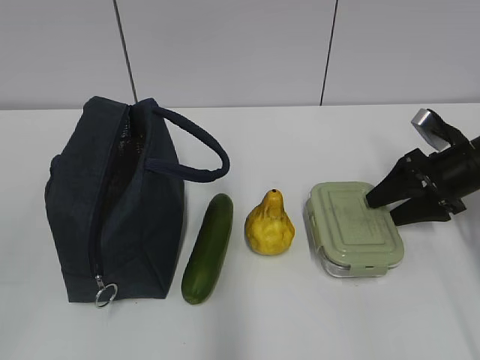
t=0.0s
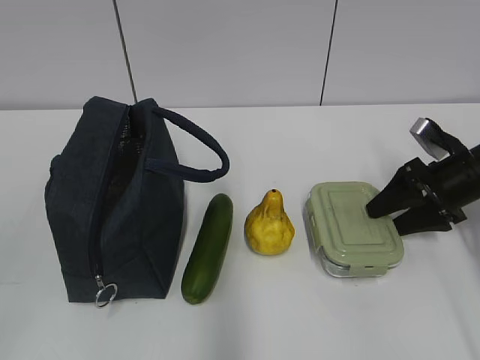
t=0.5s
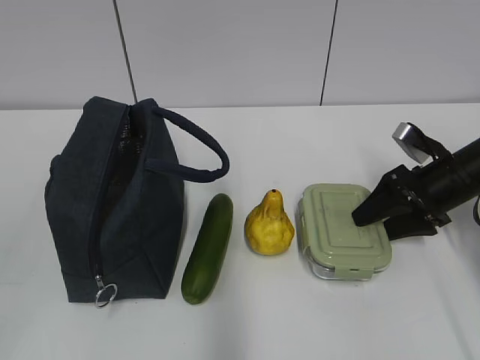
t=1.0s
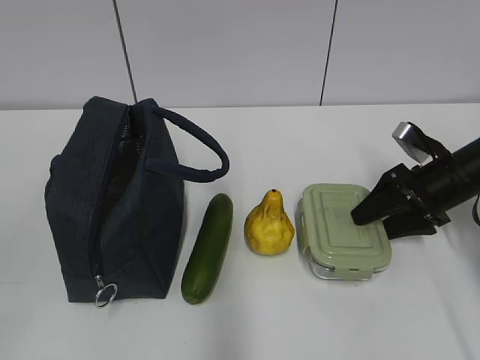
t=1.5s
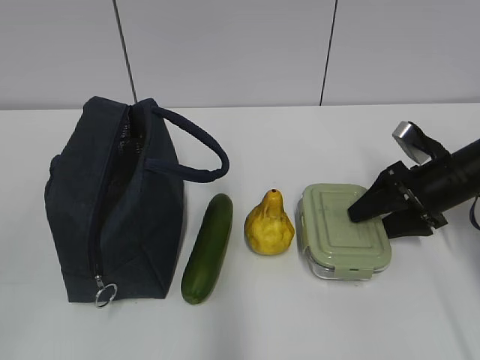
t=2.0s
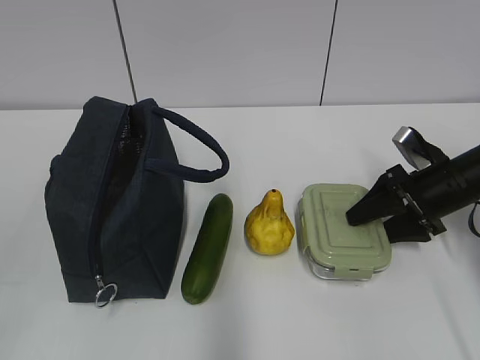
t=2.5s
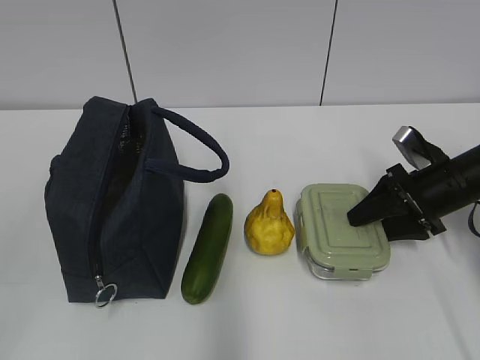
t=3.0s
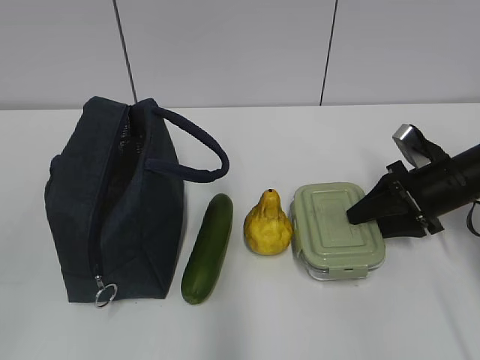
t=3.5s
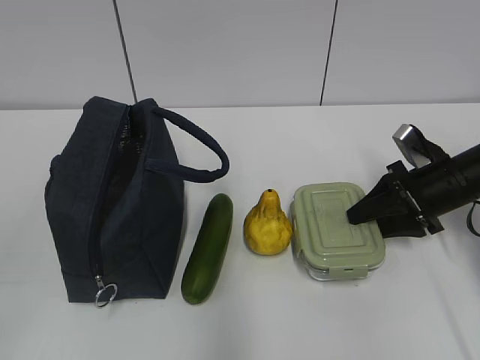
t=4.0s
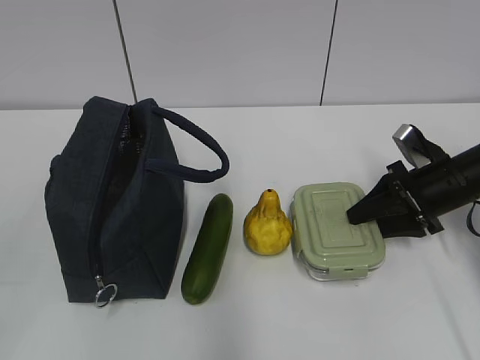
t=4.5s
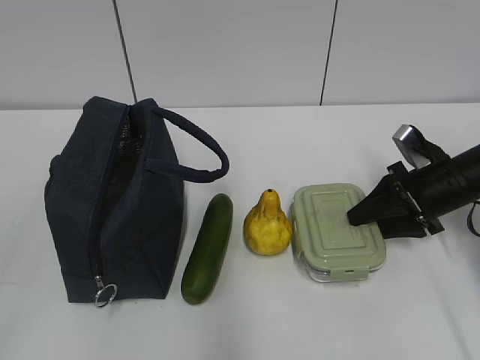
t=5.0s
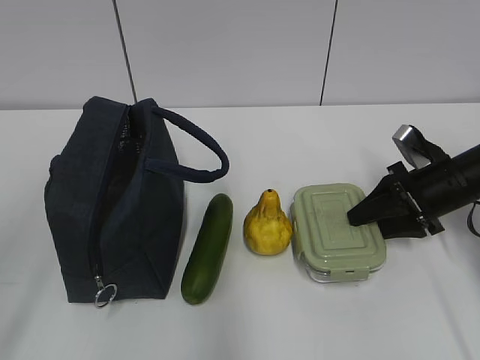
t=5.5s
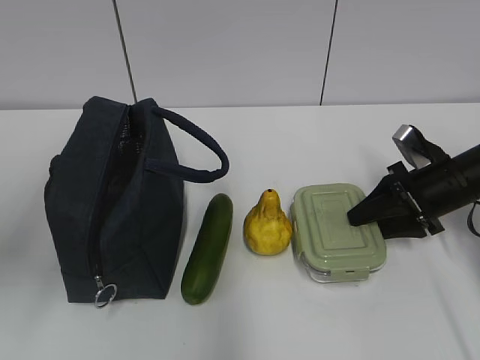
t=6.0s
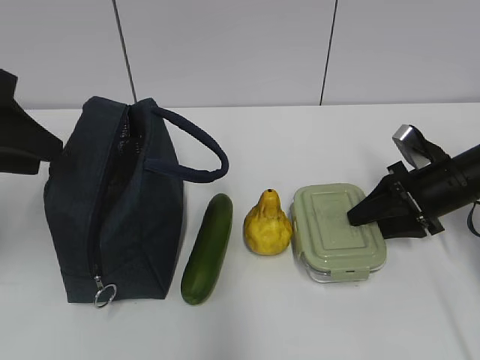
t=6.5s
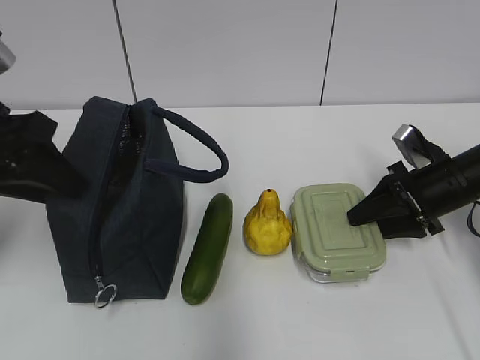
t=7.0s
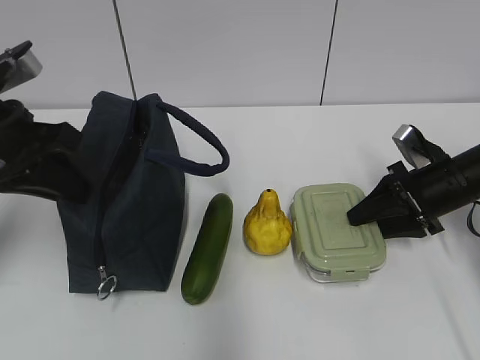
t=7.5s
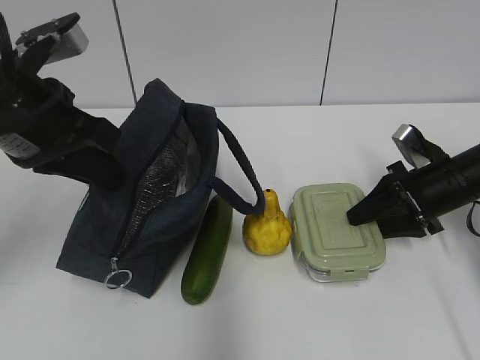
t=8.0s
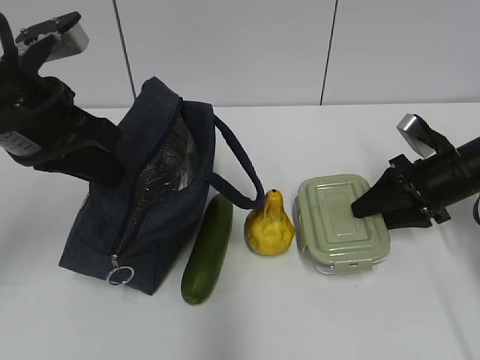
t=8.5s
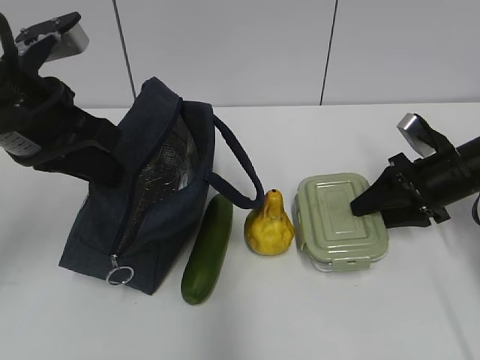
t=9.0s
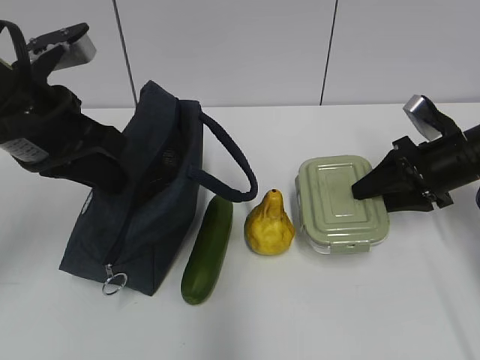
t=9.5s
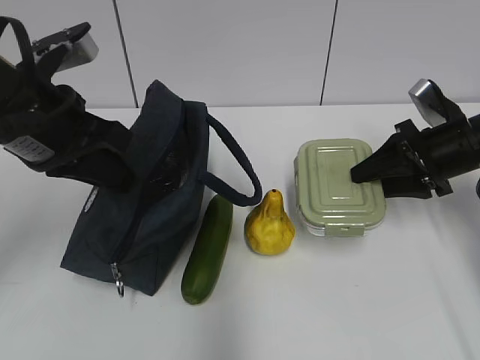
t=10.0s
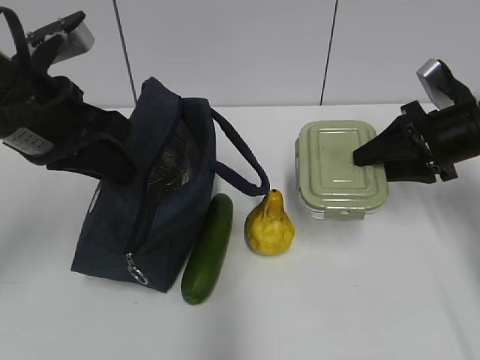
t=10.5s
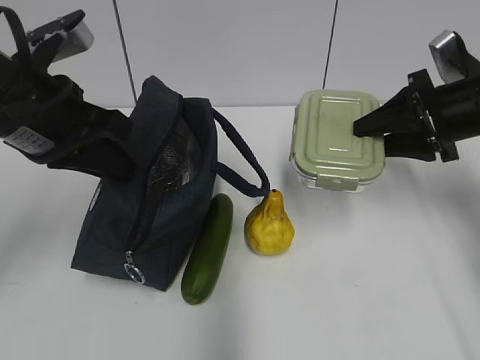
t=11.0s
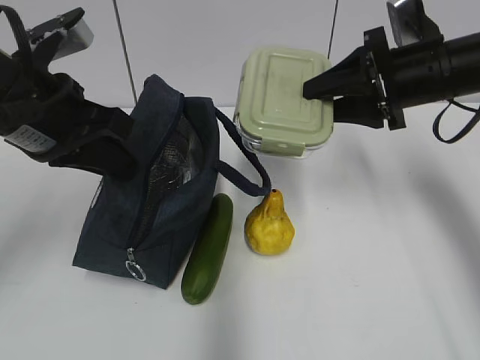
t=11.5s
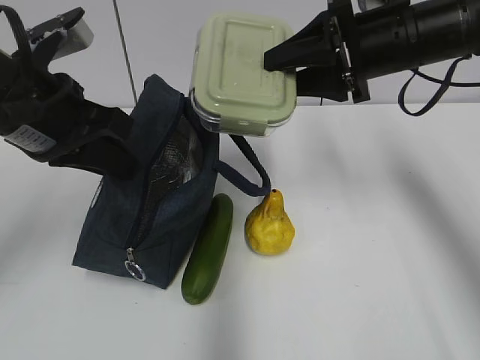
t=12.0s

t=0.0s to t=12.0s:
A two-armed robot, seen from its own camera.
t=0.0s to t=2.0s: The grippers stay close to where they were, moving slightly.
t=2.0s to t=4.0s: Both grippers stay put.
t=4.0s to t=6.0s: The left gripper heads forward, covering roughly 15 cm.
t=6.0s to t=8.0s: The left gripper shifts some 15 cm forward and to the right, and closes.
t=8.0s to t=10.0s: The right gripper moves upward, some 5 cm.
t=10.0s to t=12.0s: The right gripper is displaced upward and to the left by about 15 cm.

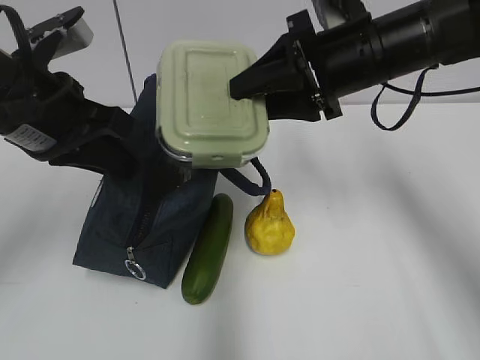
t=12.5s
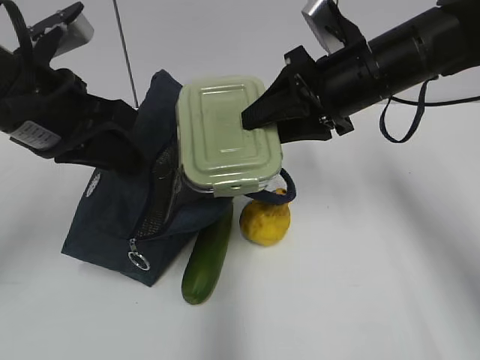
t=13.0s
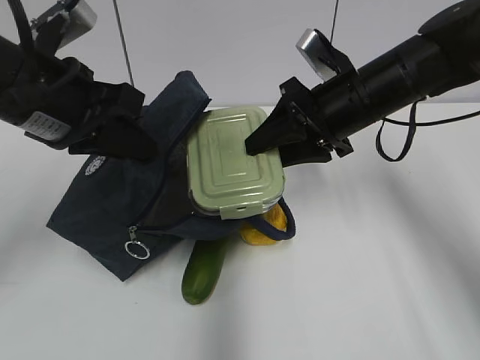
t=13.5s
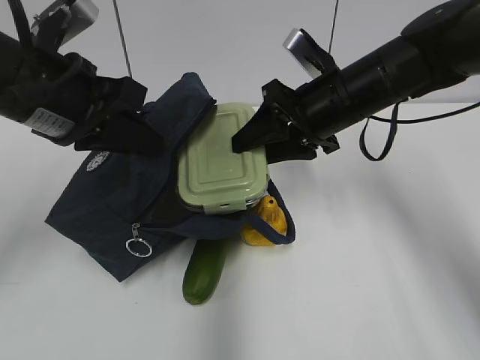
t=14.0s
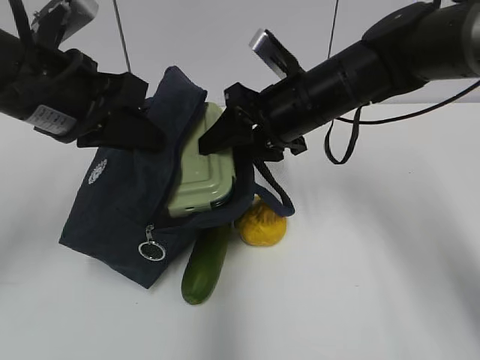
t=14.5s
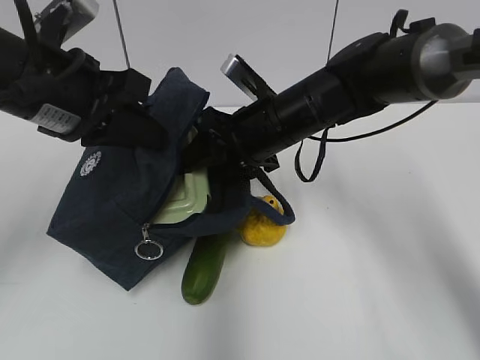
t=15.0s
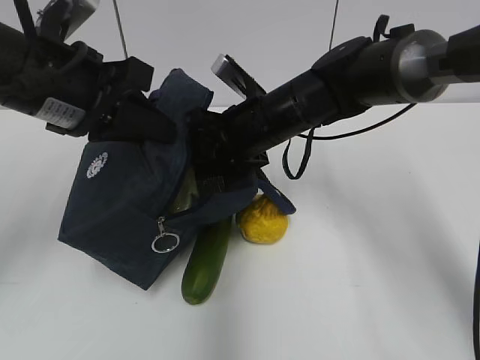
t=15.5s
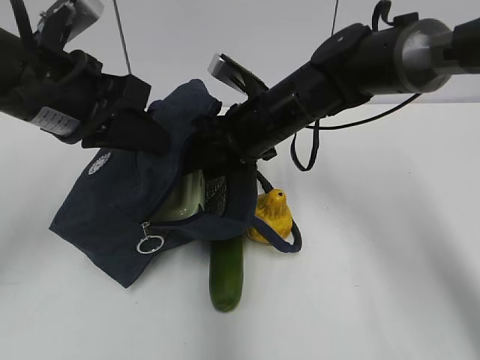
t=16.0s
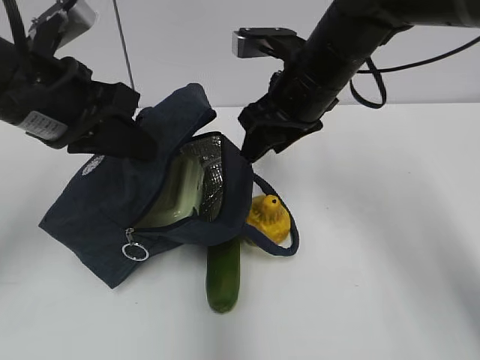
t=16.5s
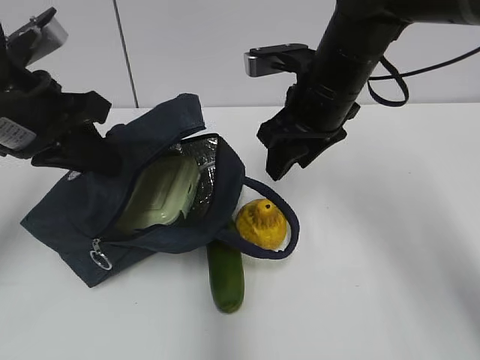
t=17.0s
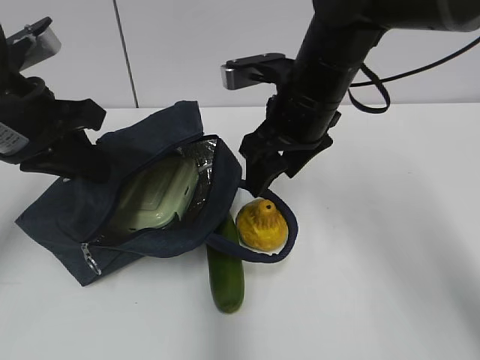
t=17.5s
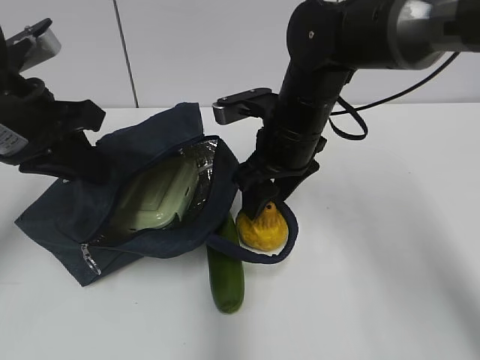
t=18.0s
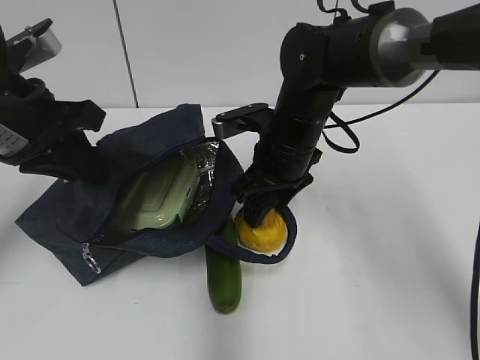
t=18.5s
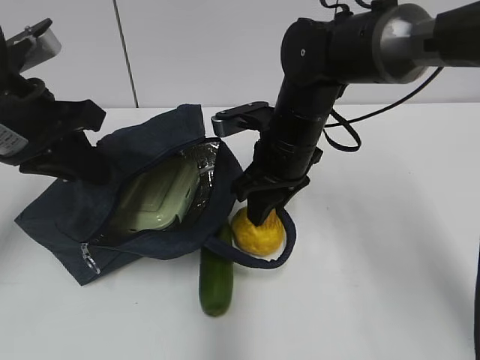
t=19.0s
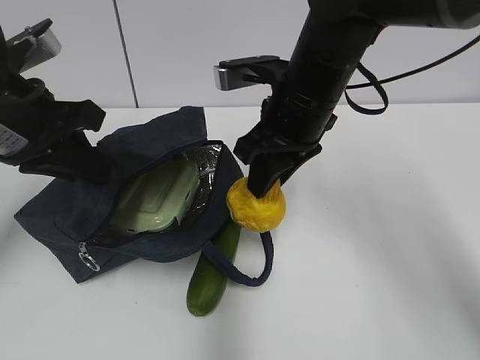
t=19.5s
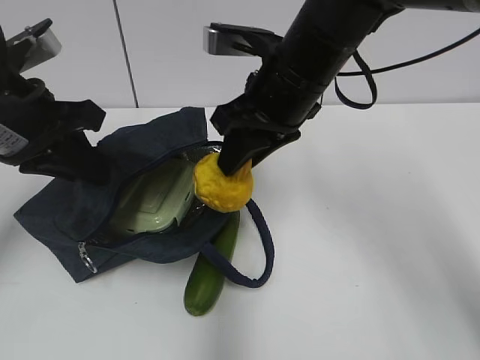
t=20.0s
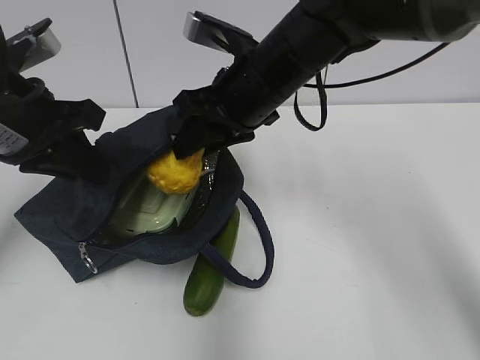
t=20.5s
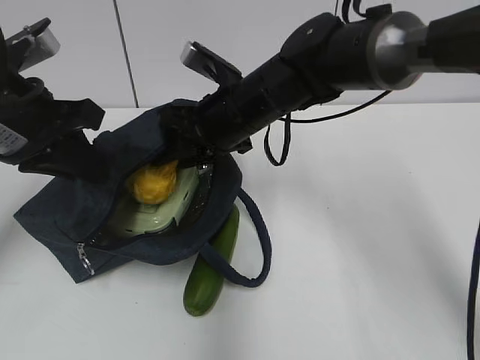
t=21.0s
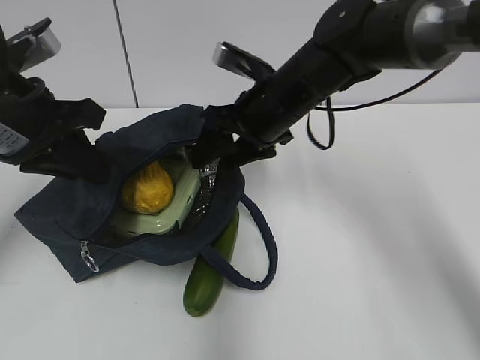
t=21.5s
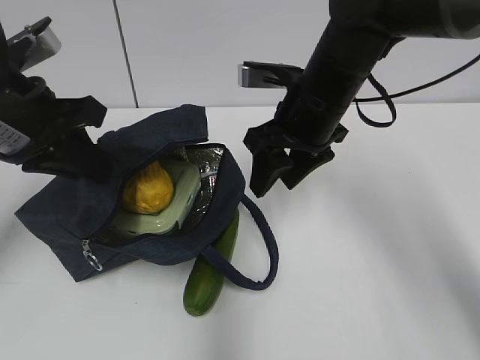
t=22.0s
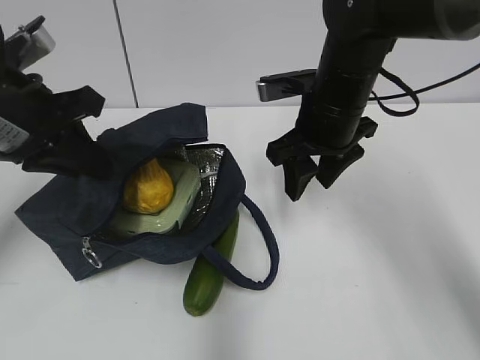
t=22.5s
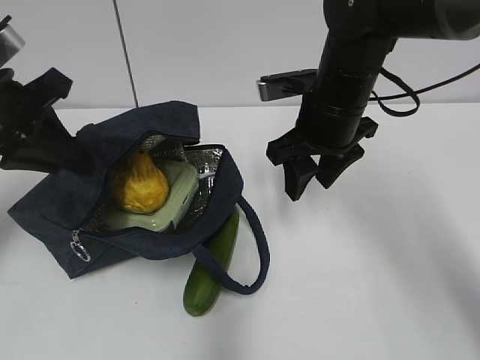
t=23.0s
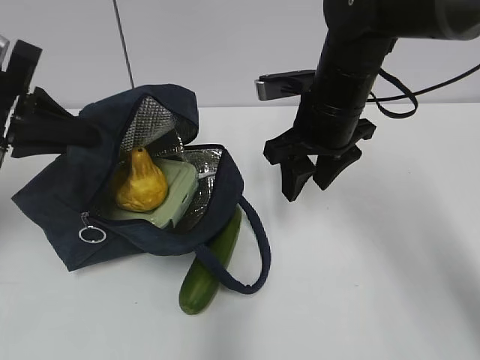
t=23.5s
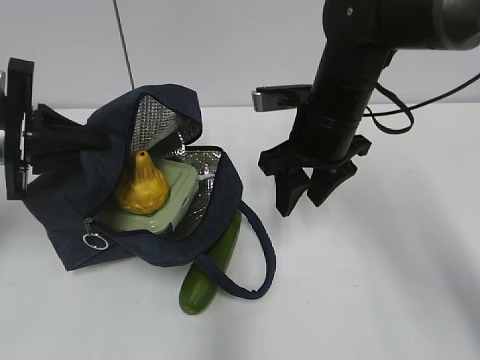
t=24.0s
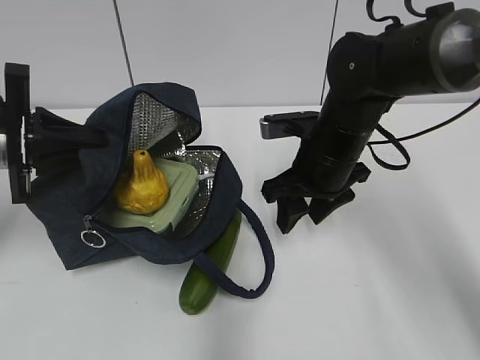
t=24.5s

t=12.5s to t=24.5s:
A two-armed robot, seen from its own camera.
t=12.5s to t=14.5s: The right gripper moves downward and to the left, roughly 10 cm.
t=16.5s to t=18.5s: The right gripper heads downward, covering some 5 cm.
t=18.5s to t=20.5s: The right gripper moves upward, approximately 10 cm.
t=20.5s to t=22.5s: The right gripper is displaced to the right by roughly 5 cm.
t=22.5s to t=24.5s: The right gripper goes approximately 5 cm downward; the left gripper heads downward and to the left, covering about 10 cm.

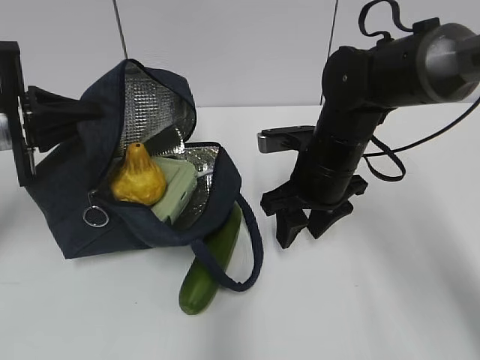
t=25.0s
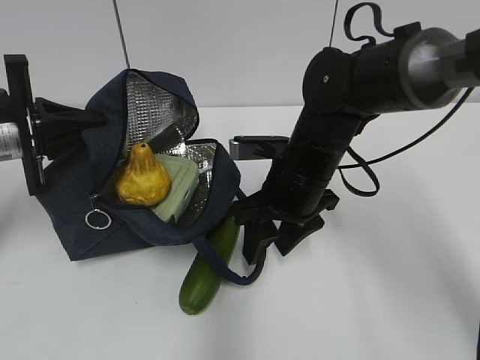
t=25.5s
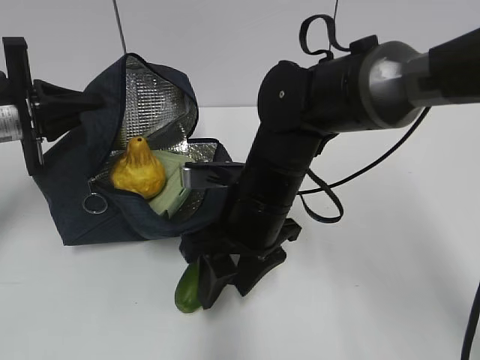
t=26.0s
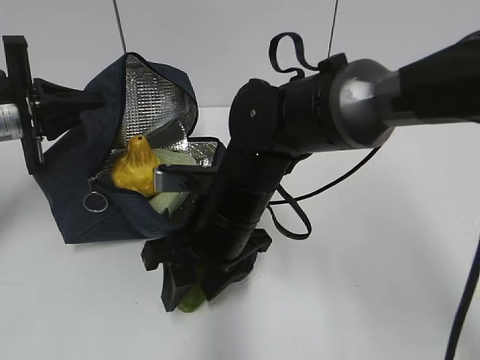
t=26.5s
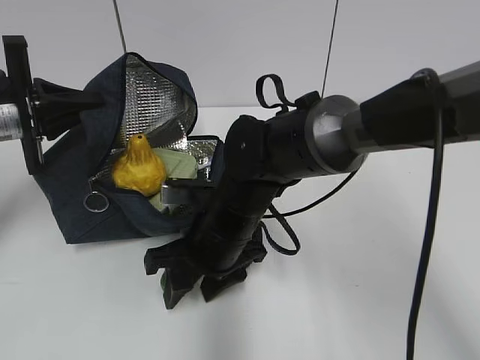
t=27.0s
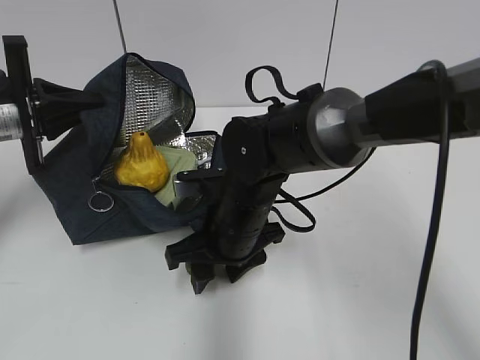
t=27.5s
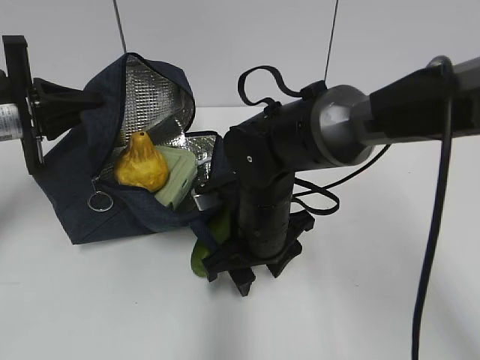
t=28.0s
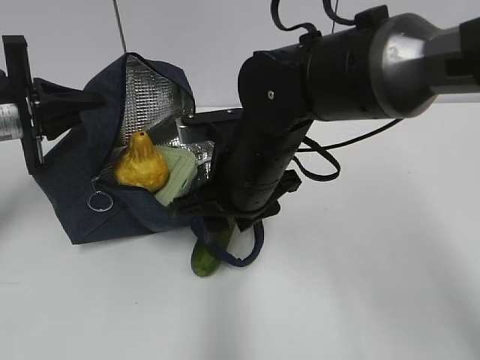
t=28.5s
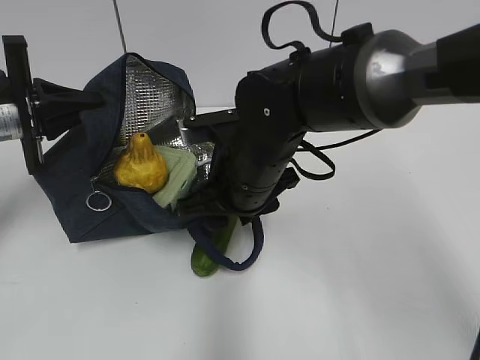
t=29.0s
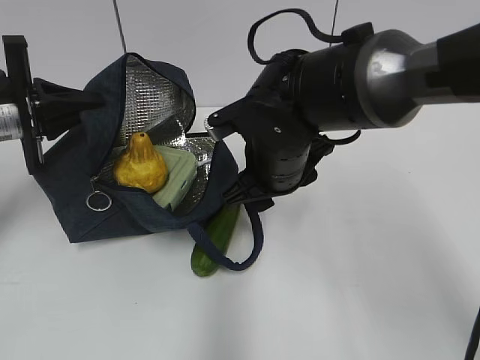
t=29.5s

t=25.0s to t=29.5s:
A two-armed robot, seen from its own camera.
t=25.0s to t=27.0s: The right gripper goes some 10 cm to the left.
t=27.0s to t=29.5s: The right gripper heads upward and to the right, covering about 10 cm.
